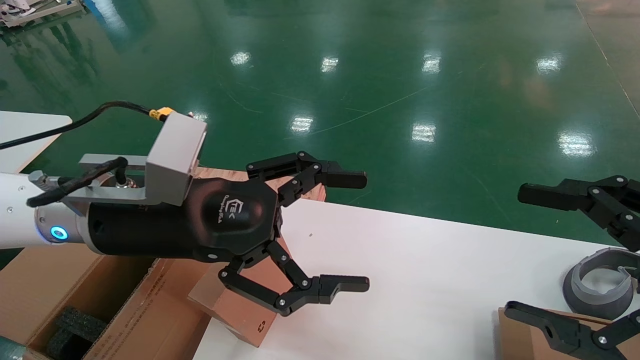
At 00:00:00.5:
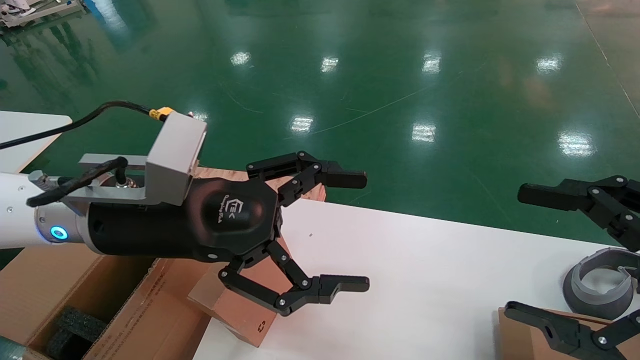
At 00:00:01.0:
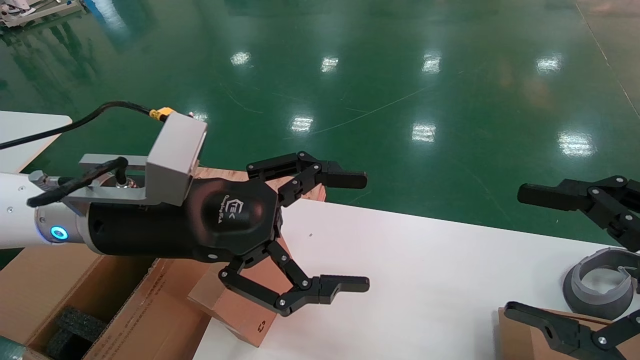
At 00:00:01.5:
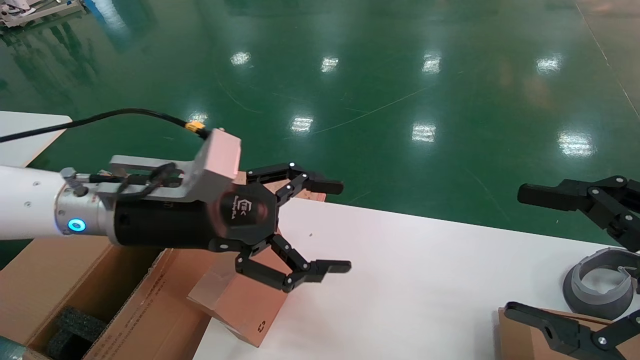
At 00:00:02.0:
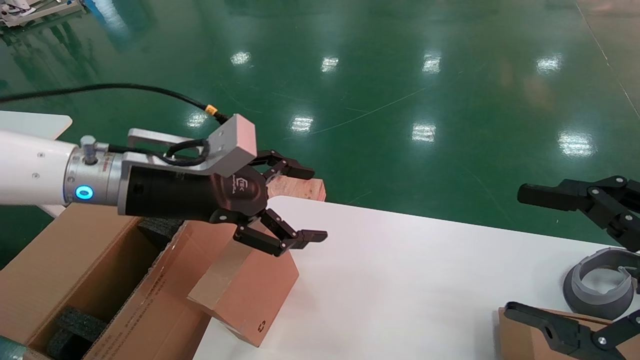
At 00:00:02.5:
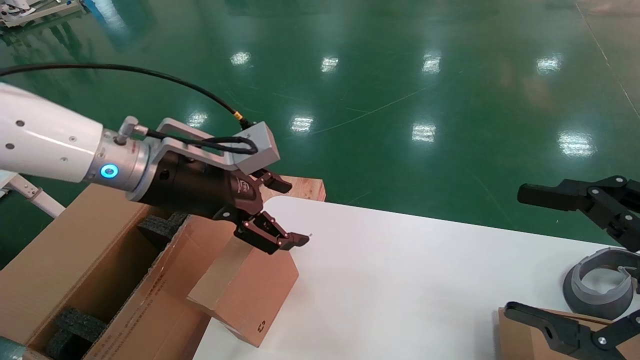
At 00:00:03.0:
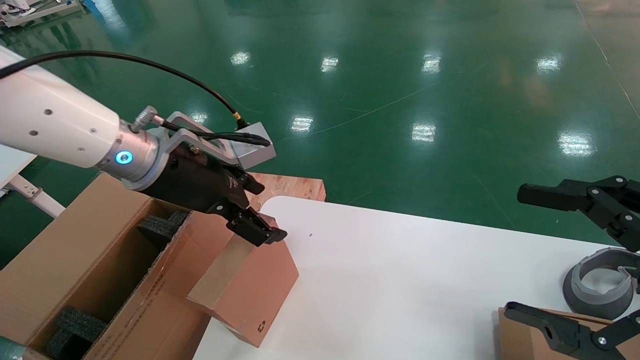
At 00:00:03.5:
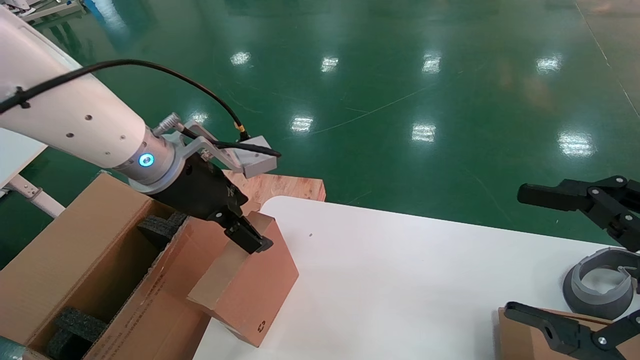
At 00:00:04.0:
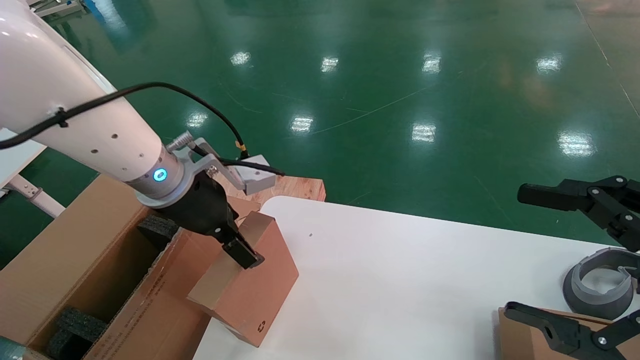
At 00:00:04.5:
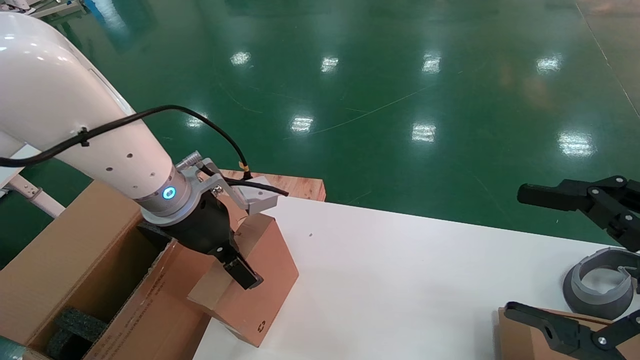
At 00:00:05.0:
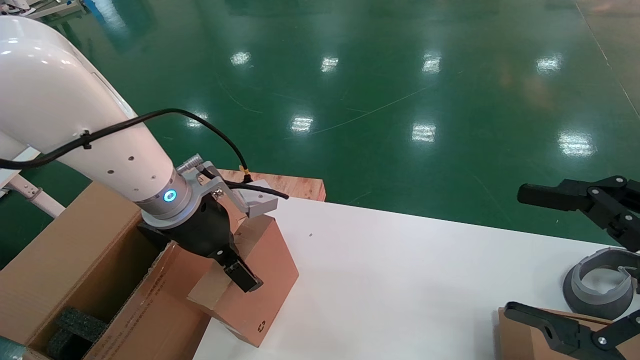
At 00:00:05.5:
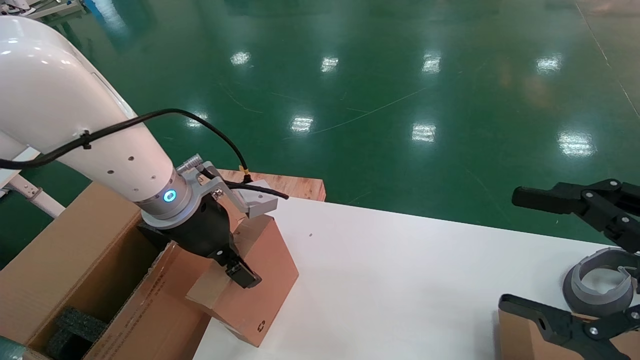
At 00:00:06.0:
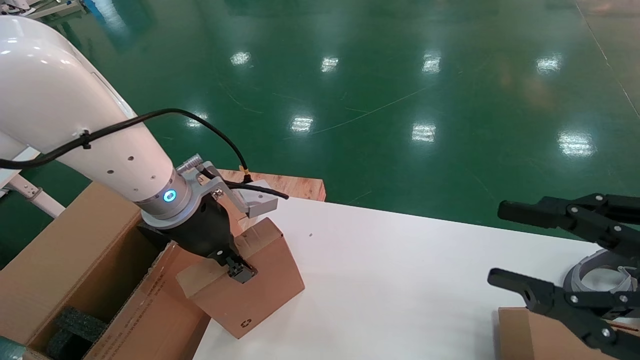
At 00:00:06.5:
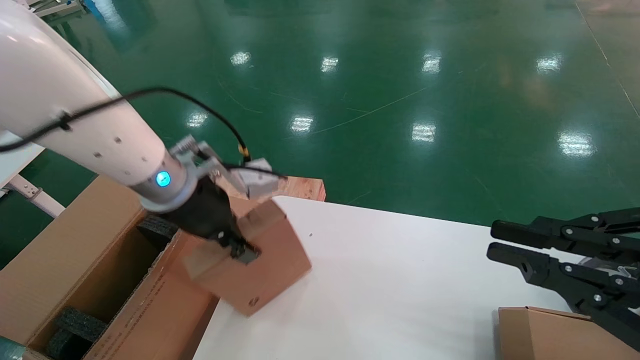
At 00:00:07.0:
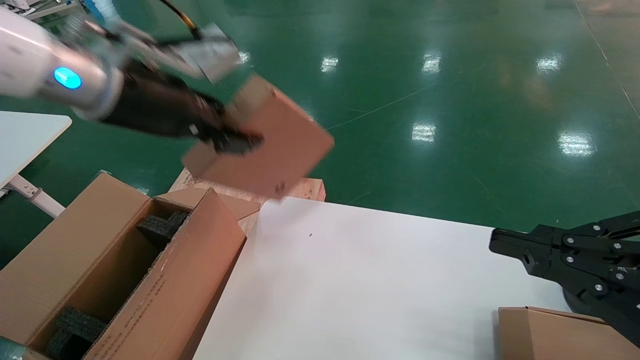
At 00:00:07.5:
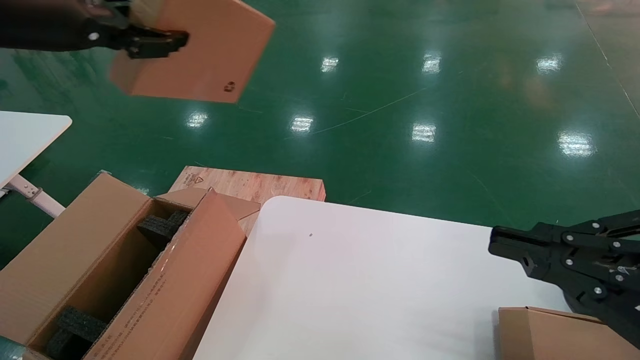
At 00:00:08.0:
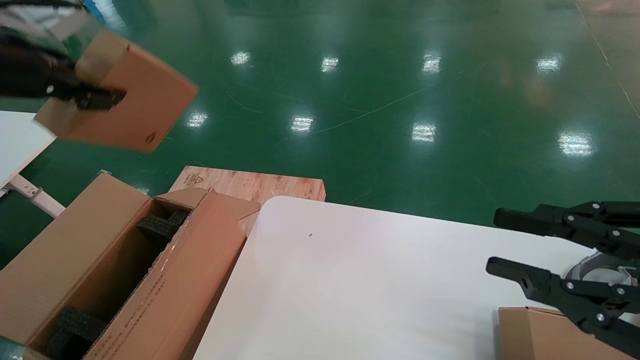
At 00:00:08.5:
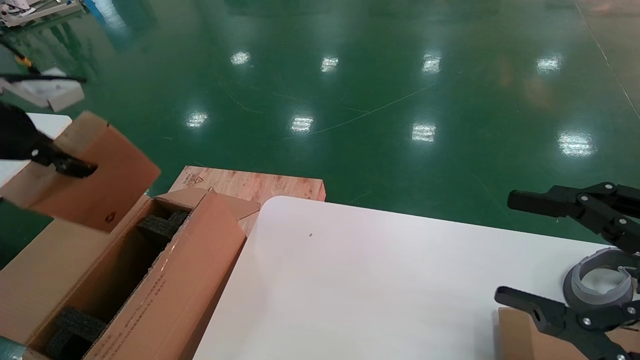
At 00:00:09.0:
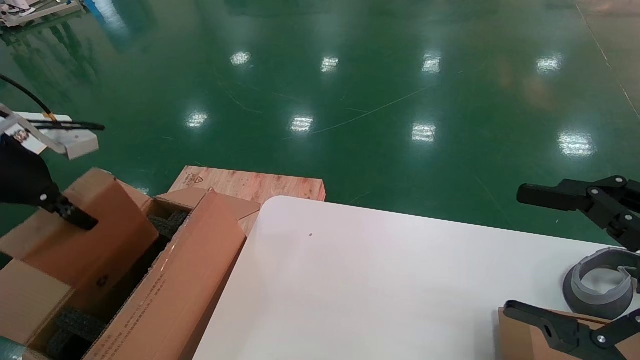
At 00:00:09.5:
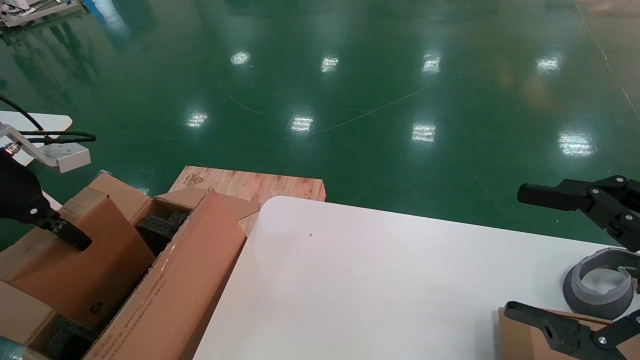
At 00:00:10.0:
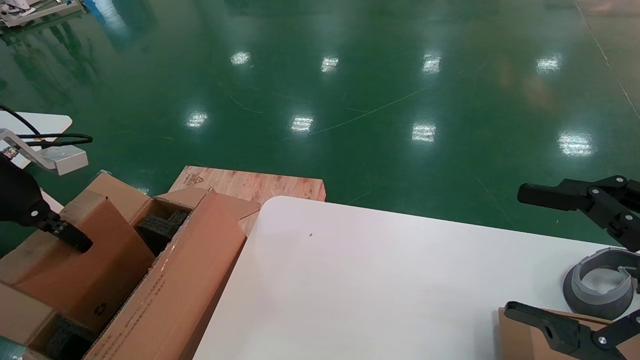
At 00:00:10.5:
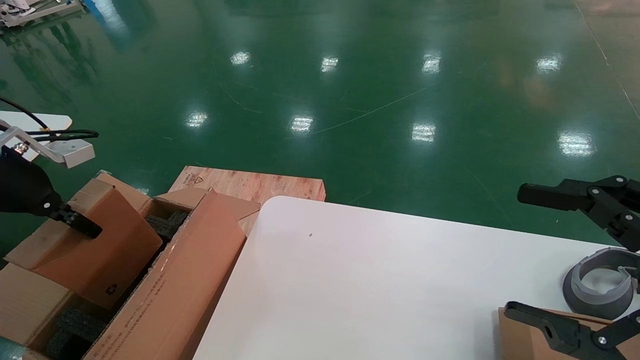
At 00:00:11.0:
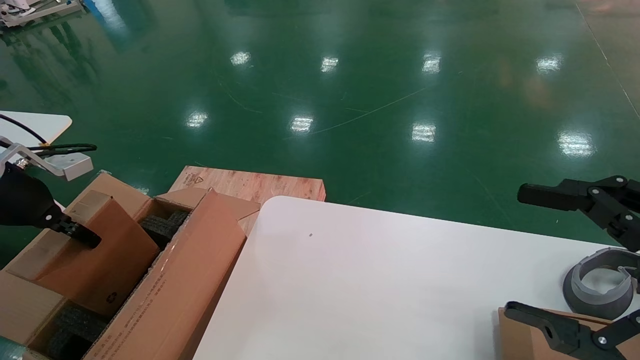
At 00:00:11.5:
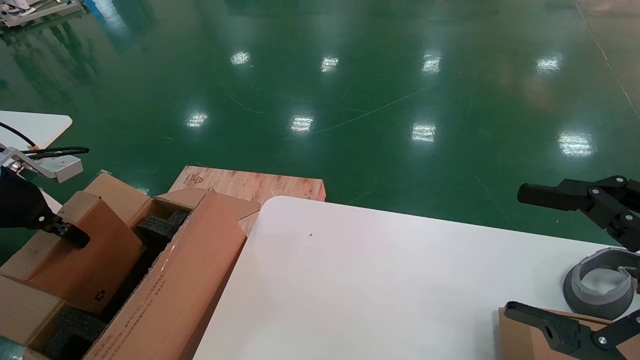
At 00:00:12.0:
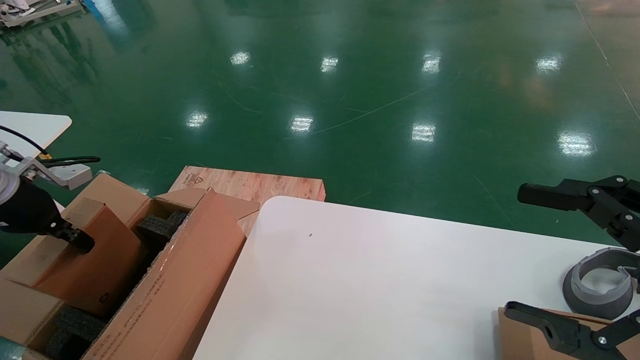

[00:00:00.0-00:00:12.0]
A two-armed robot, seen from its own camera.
Task of the whole recording: put the box on the table into the big box.
Step, 00:00:00.0 to 00:00:06.0: Grasp the paper box.
00:00:00.0 to 00:00:02.0: The left gripper shifts by approximately 5 cm.
00:00:04.0 to 00:00:06.0: The left gripper closes up.
00:00:06.0 to 00:00:08.0: The right gripper closes up, while the left gripper shifts roughly 25 cm to the left and upward.
00:00:08.0 to 00:00:10.0: The right gripper opens up. Meanwhile the left gripper travels downward and to the left by about 15 cm.
00:00:10.0 to 00:00:12.0: The left gripper goes some 5 cm downward.

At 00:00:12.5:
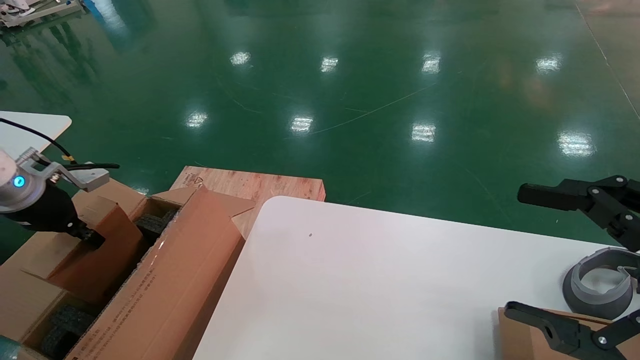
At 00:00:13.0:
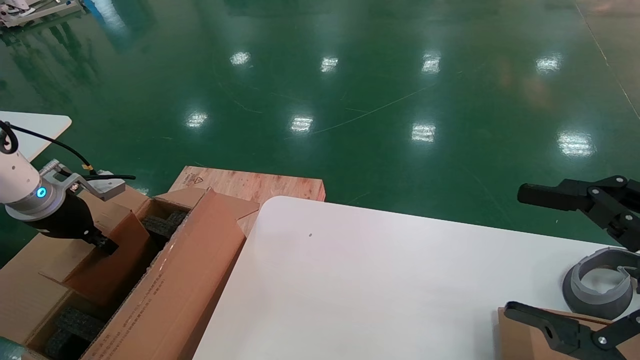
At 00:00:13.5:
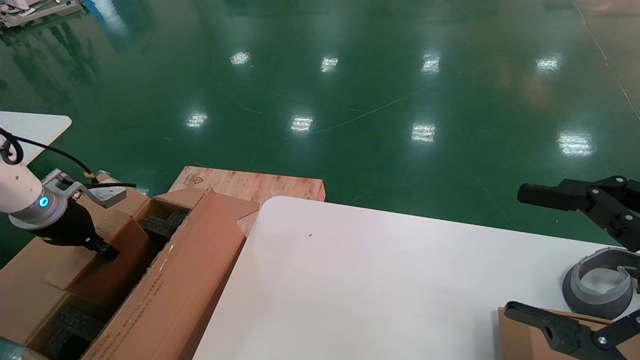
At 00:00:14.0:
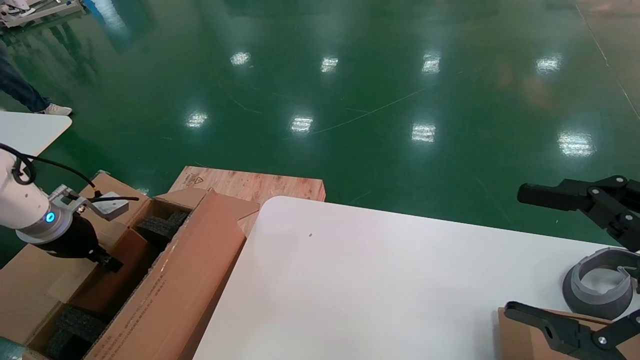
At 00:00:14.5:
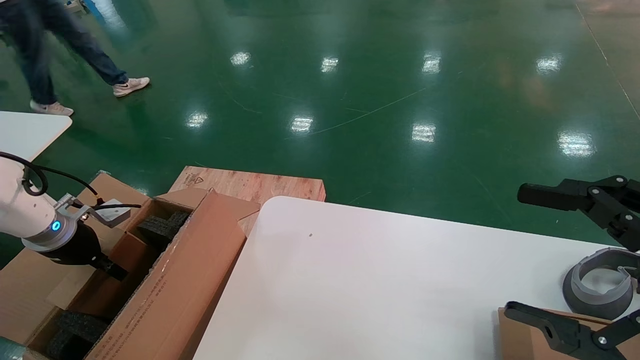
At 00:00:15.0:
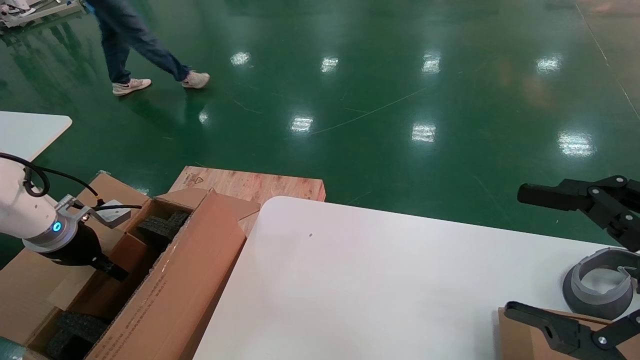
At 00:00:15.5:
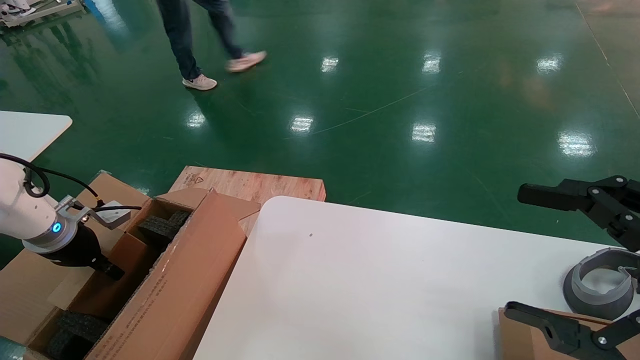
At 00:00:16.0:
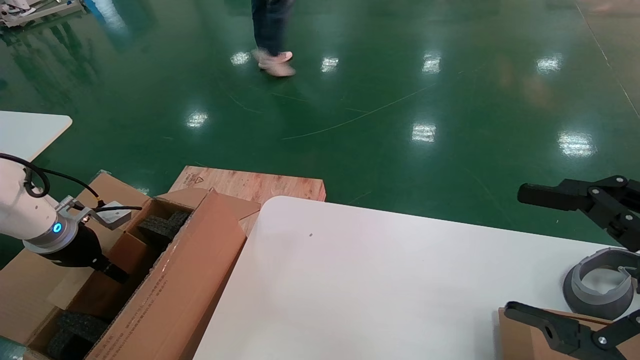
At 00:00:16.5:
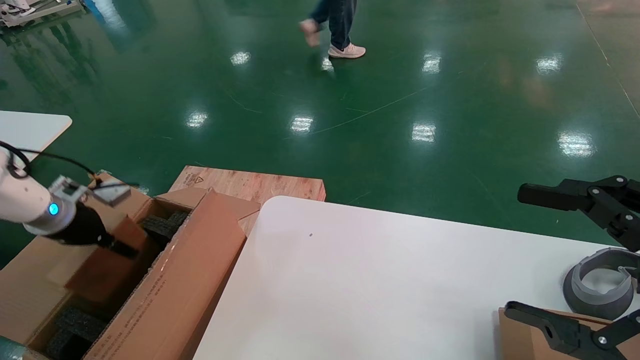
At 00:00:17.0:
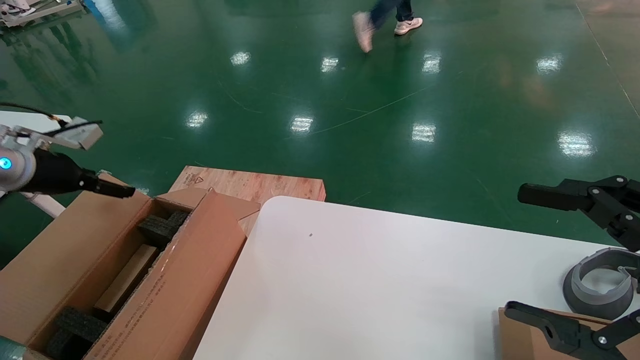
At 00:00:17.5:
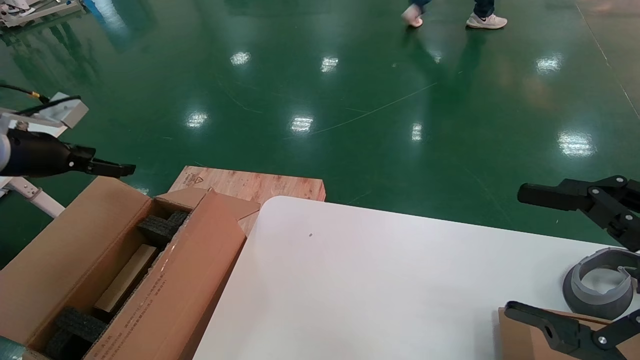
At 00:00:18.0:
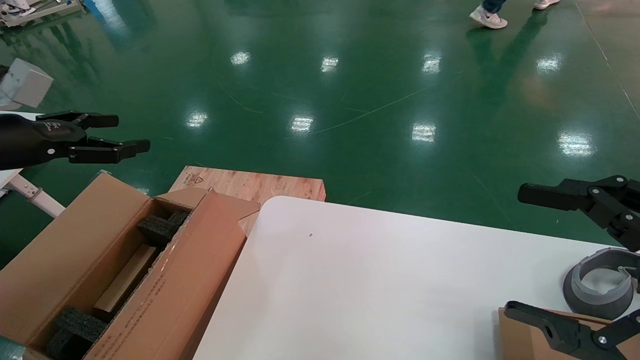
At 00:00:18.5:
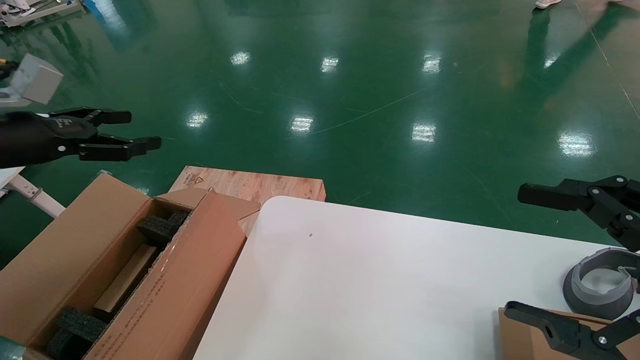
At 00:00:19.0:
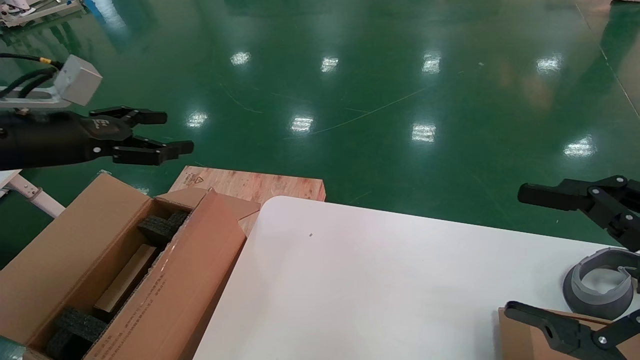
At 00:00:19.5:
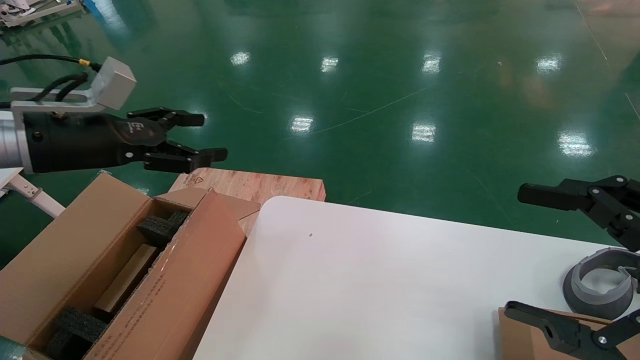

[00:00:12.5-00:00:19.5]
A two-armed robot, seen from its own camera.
Task of the whole recording: put the box on the table into the big box.
Step, 00:00:12.5 to 00:00:16.5: Place the paper box in the another big box.
00:00:12.5 to 00:00:14.5: The left gripper travels downward by roughly 10 cm.
00:00:14.5 to 00:00:16.0: The left gripper opens.
00:00:16.0 to 00:00:17.5: The left gripper travels upward by about 15 cm.
00:00:17.5 to 00:00:19.5: The left gripper is displaced to the right by about 15 cm.
